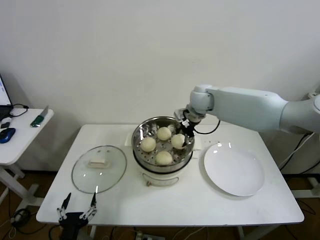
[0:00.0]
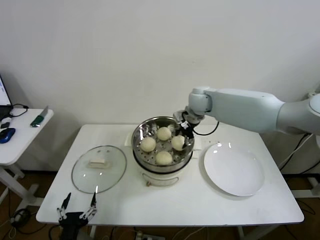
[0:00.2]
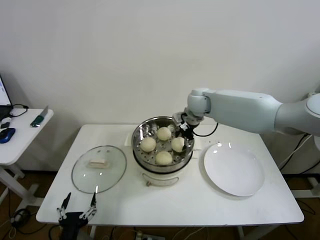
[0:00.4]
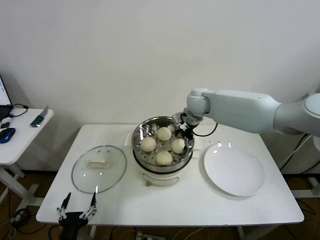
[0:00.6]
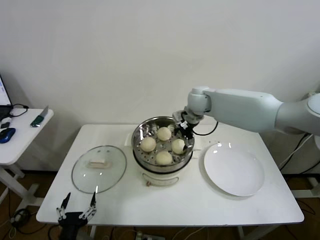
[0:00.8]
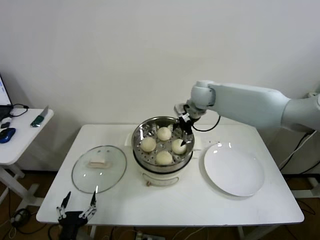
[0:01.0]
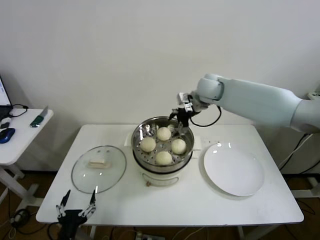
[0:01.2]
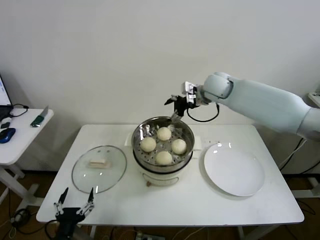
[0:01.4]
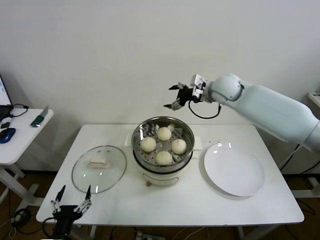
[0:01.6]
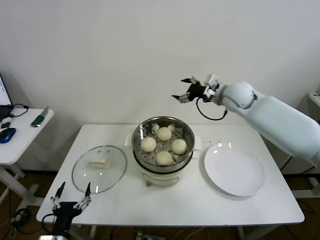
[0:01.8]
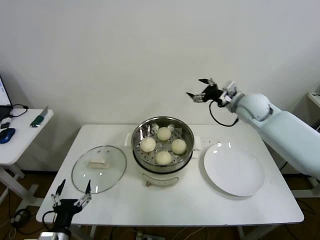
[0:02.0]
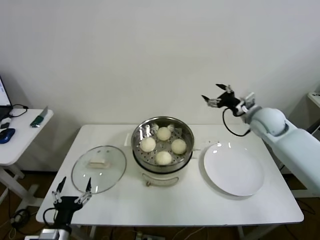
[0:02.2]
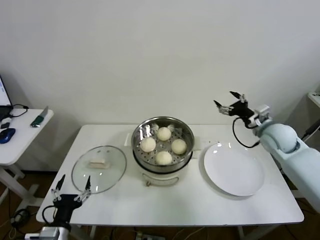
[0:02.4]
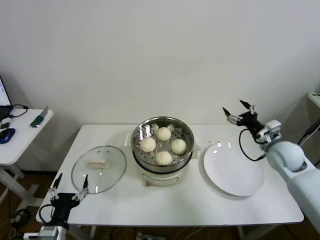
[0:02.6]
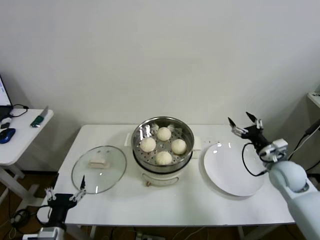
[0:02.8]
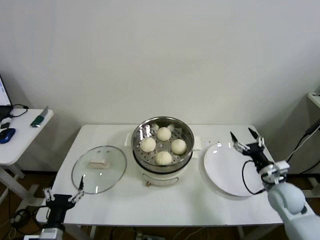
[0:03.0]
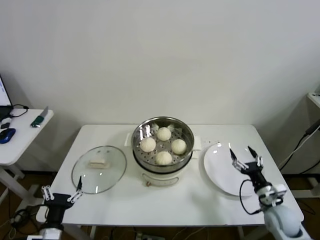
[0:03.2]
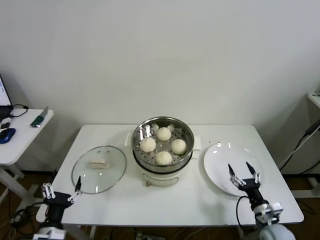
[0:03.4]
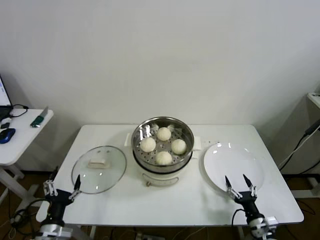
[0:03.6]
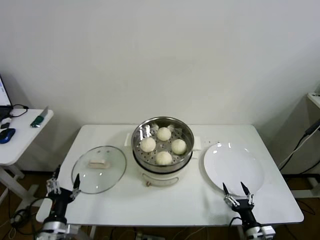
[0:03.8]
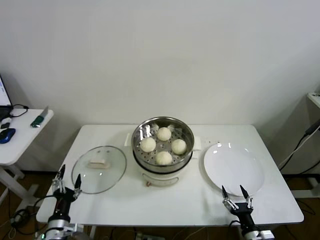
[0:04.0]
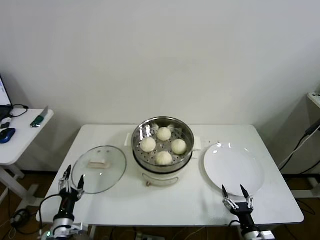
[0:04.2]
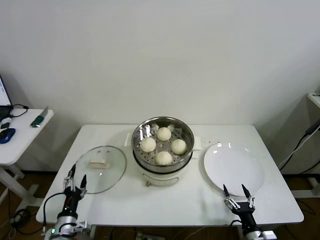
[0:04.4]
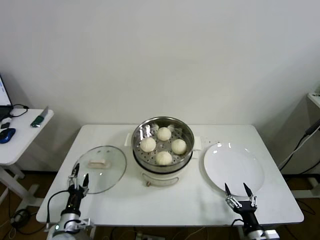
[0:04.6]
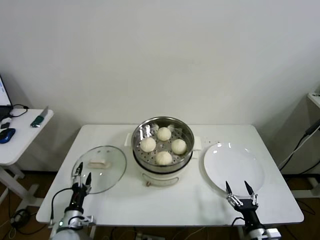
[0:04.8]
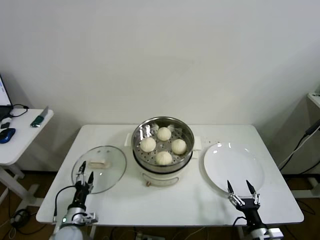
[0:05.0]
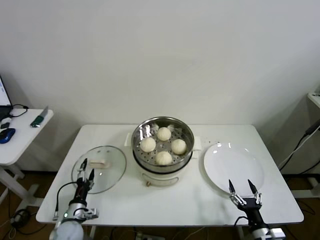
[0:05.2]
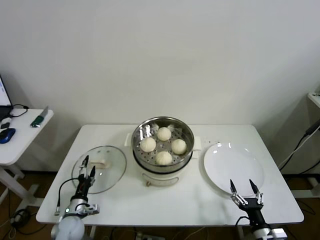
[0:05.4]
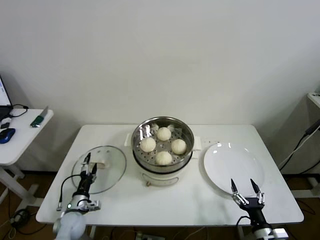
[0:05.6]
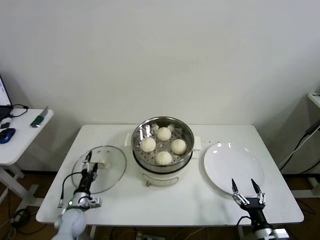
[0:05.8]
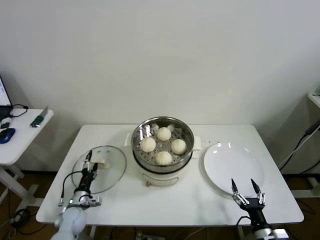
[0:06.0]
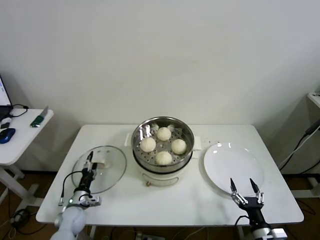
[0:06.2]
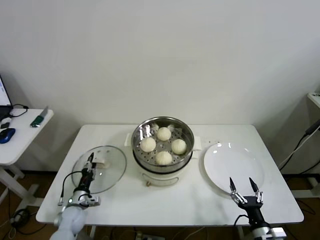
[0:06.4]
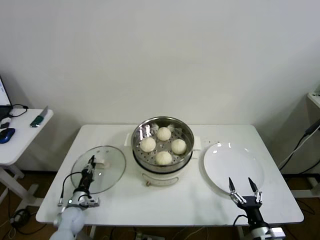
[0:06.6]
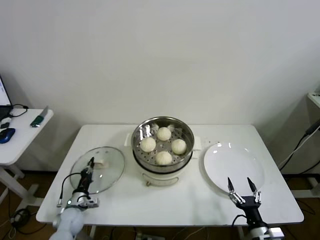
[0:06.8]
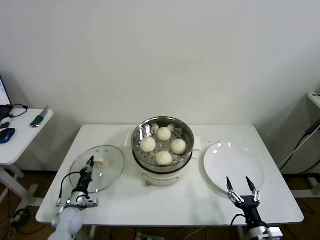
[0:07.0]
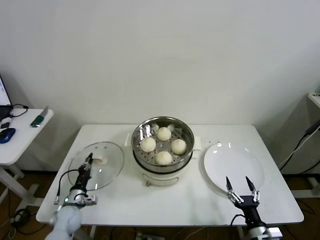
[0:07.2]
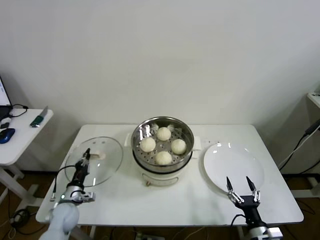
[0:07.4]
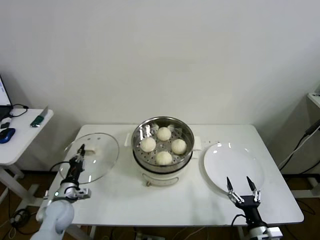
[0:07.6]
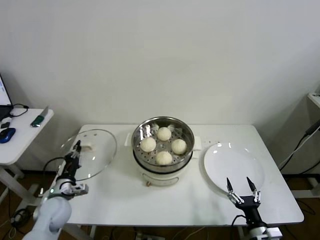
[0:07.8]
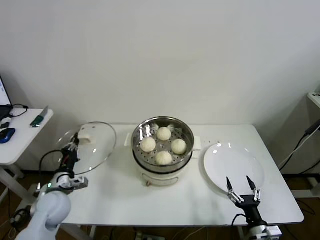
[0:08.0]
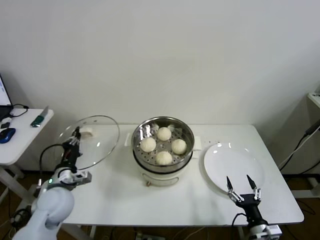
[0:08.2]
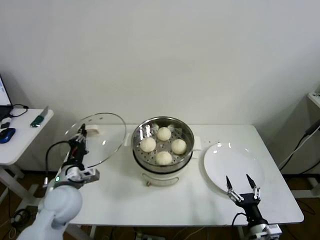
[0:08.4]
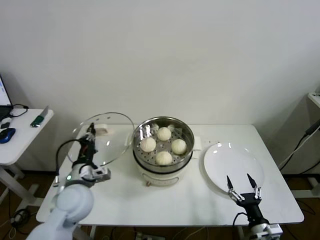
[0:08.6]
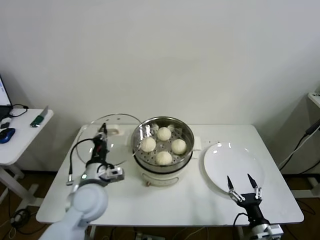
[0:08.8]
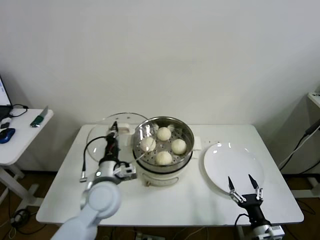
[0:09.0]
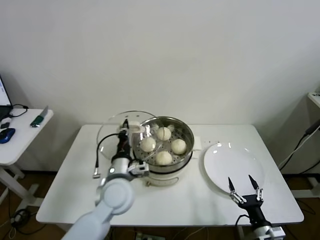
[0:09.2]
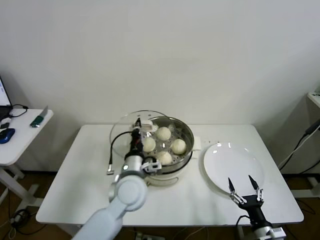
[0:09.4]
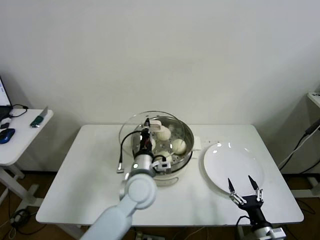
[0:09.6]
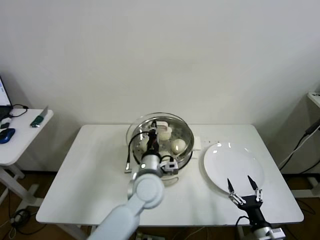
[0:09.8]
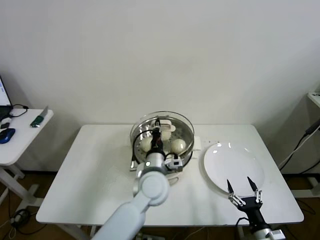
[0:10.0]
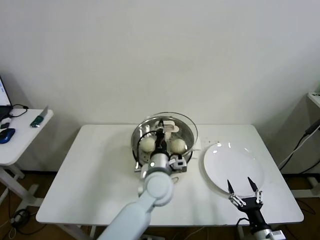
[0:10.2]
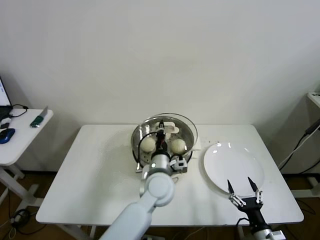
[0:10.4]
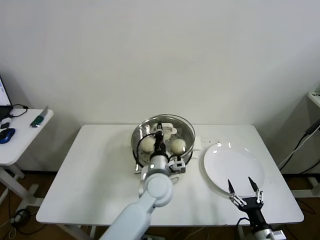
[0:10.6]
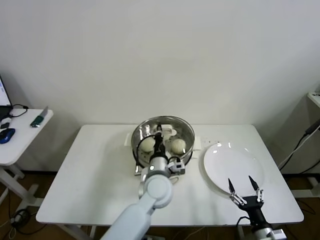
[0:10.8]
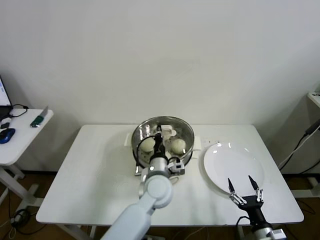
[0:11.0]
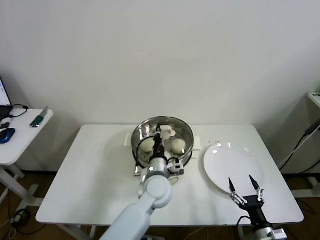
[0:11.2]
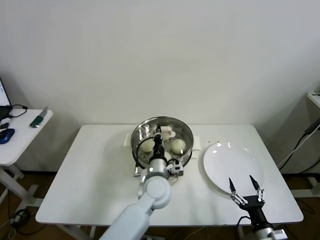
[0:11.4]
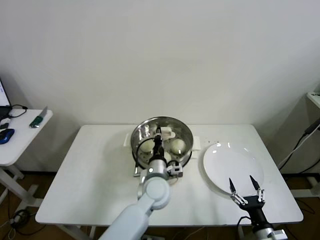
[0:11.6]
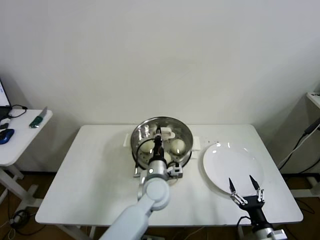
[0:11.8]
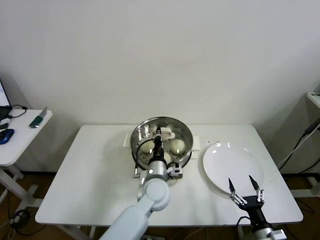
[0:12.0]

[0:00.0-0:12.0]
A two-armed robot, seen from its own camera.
Step, 0.8 to 6.6 s: Grasp the pot lid with left gripper.
0.0 to 1.6 s: The right gripper shifts about 5 cm to the right, and opens.
1.6 to 3.0 s: The right gripper travels downward, backward and to the right by approximately 40 cm.
3.0 to 4.4 s: The right gripper moves backward, downward and to the left, roughly 25 cm. The left gripper moves downward and forward, roughly 10 cm.
4.4 to 6.0 s: The left gripper travels forward and downward by about 10 cm.
6.0 to 7.6 s: The left gripper heads upward, covering approximately 5 cm, and closes up.
7.6 to 9.0 s: The left gripper goes about 25 cm to the right and upward.
9.0 to 10.4 s: The left gripper heads to the right, covering roughly 15 cm.
10.4 to 12.0 s: The grippers move only a little.

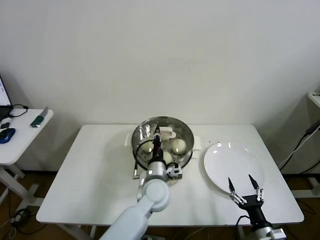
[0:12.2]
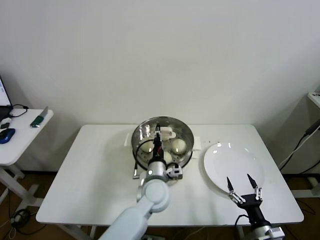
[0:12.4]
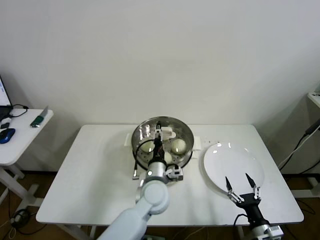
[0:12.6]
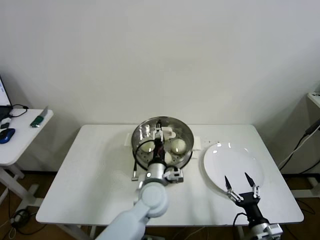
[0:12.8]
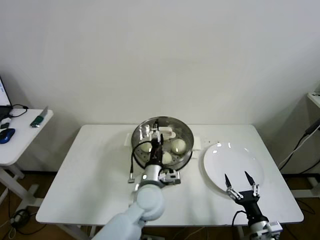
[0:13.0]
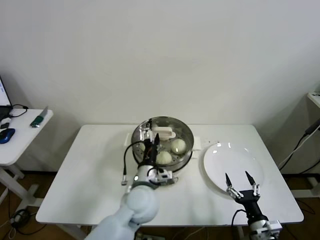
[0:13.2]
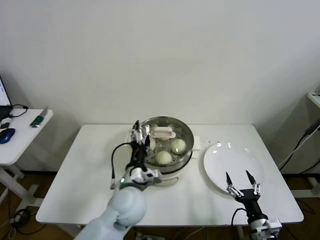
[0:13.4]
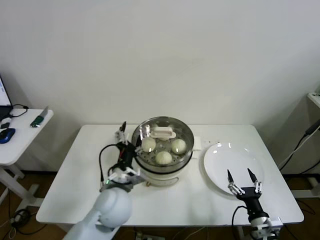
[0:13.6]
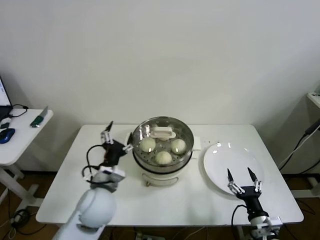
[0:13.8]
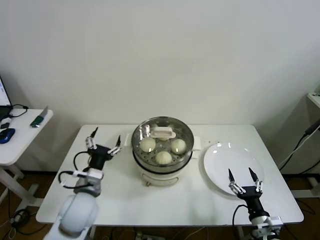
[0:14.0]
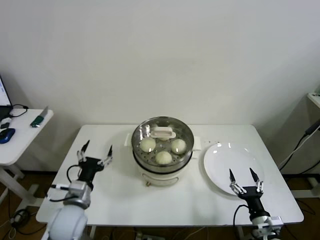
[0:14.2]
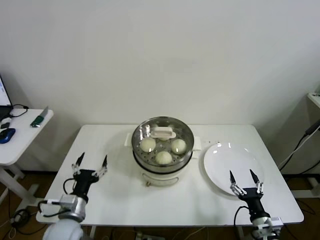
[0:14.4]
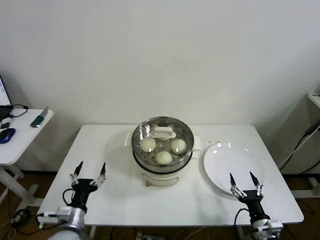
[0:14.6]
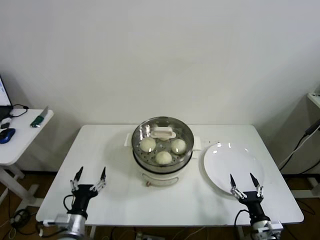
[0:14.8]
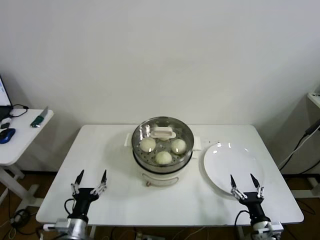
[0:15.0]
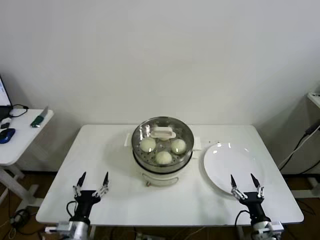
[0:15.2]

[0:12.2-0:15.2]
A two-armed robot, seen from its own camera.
12.2 to 13.8 s: The left gripper goes approximately 15 cm to the left, upward and backward, and opens its fingers.
13.8 to 15.2 s: The left gripper travels downward, backward and to the left by approximately 20 cm.

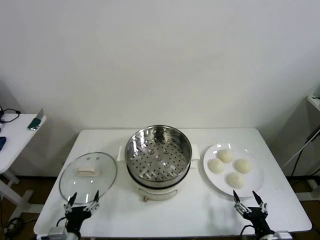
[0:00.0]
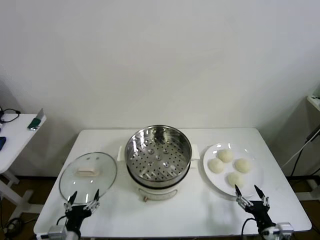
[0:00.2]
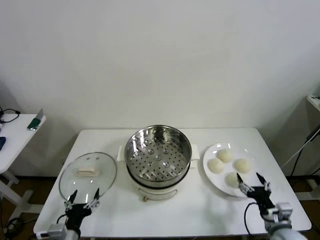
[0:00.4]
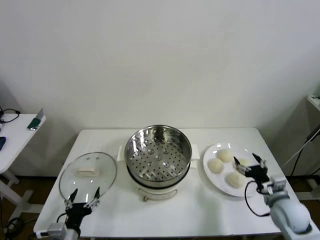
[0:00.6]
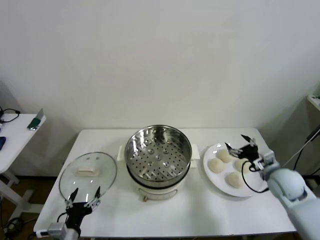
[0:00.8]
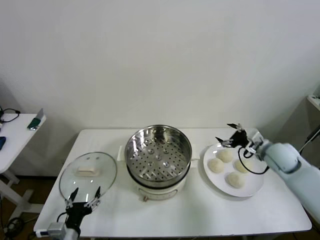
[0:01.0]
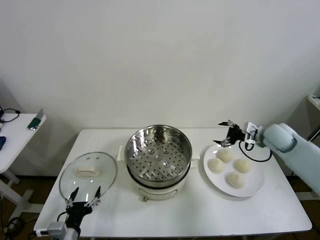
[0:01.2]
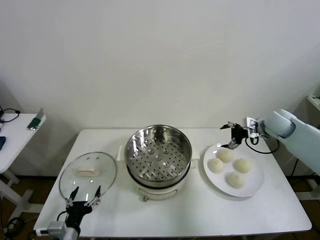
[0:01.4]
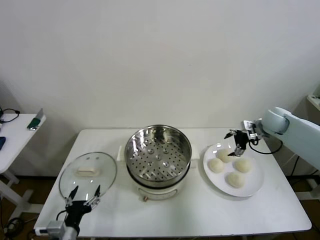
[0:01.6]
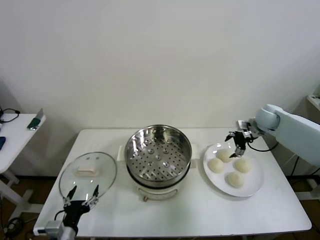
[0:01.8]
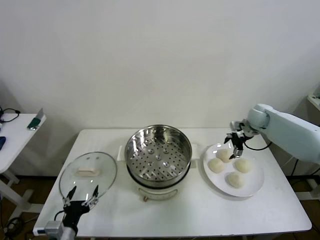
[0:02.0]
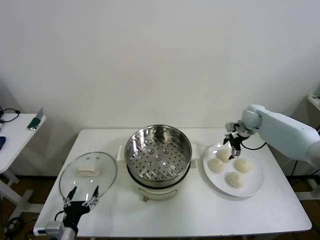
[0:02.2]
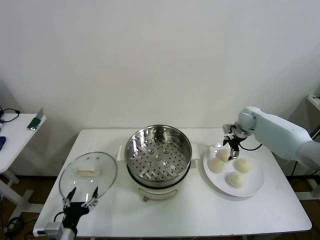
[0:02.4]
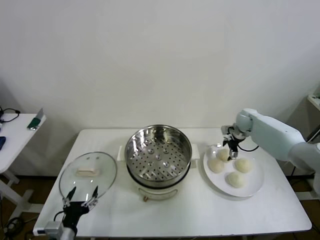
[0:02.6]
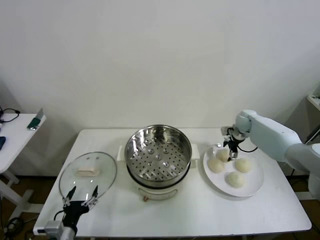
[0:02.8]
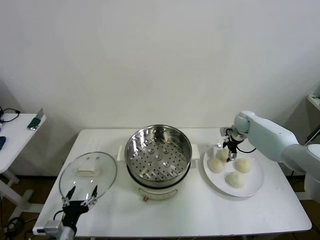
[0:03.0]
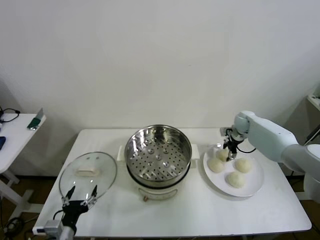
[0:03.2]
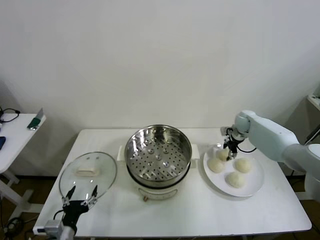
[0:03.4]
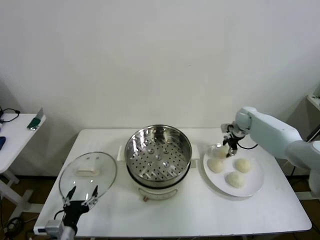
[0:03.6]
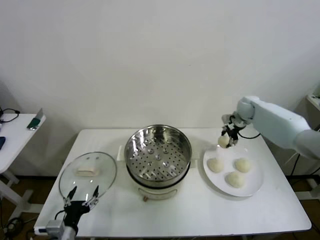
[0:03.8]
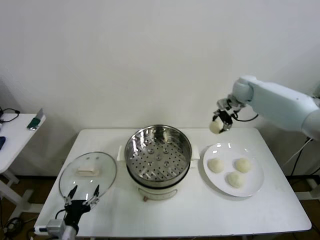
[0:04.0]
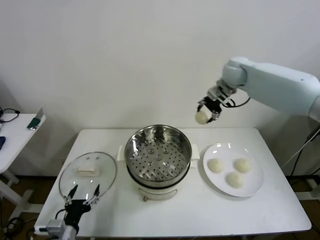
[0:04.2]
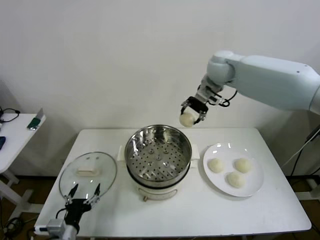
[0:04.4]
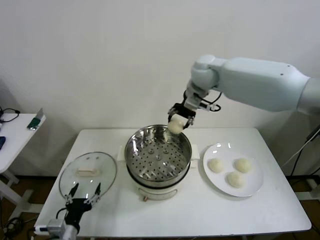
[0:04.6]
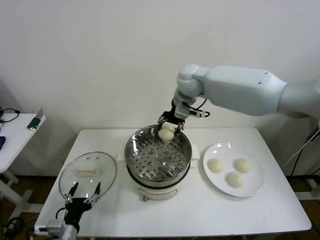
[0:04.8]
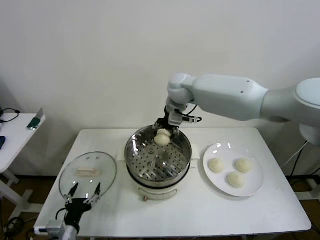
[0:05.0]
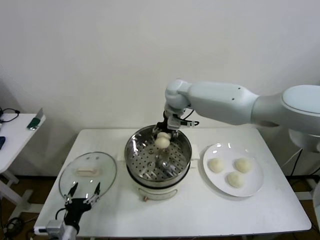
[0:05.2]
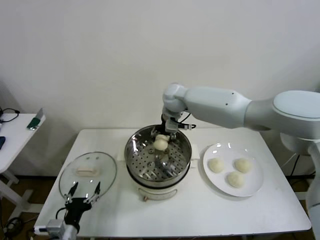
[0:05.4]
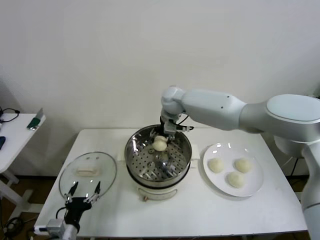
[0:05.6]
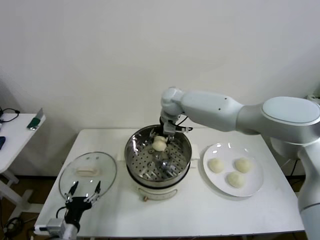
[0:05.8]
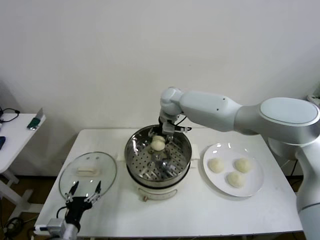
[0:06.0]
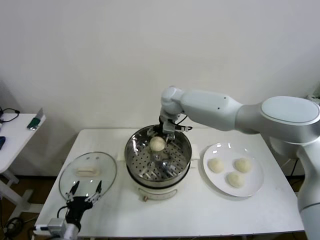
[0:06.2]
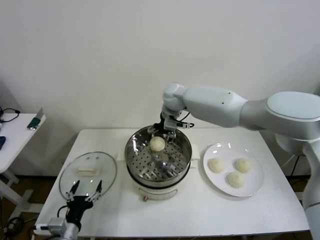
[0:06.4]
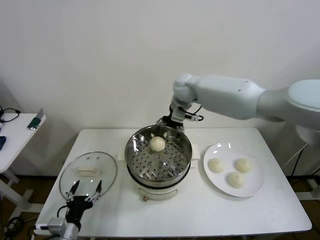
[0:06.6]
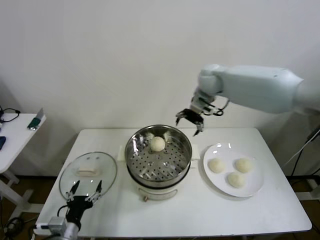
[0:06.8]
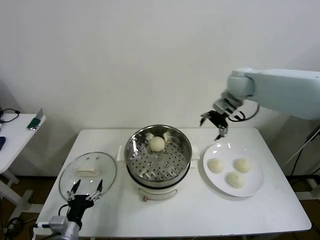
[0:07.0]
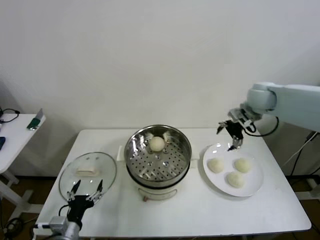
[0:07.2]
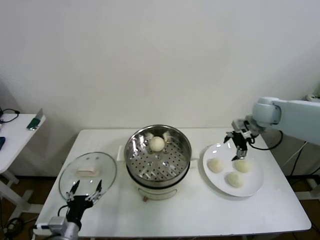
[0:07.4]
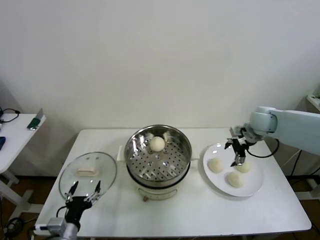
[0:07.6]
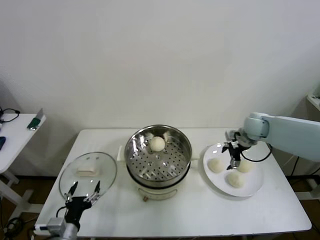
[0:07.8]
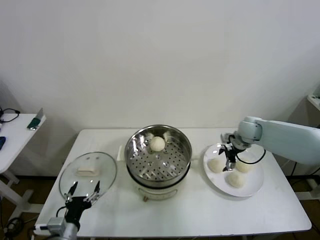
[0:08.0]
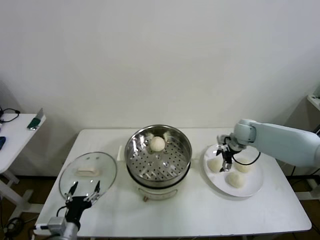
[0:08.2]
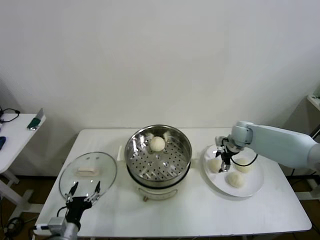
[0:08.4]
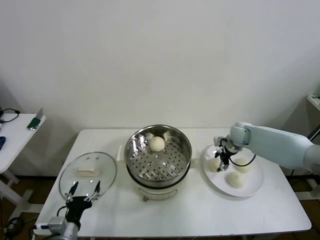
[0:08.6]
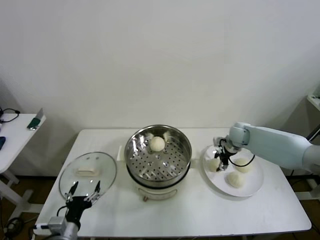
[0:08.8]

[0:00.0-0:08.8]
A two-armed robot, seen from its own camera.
Step, 0.0 to 3.0 s: Grasp the baozi in the plate with right gripper.
Step, 3.4 to 6.4 s: Place the baozi on the steamer with right gripper.
Step, 6.6 to 8.6 s: Grasp the baozi in the plate with right gripper.
1.4 to 3.0 s: The right gripper heads forward, downward and to the left, covering about 15 cm, and closes up.
3.0 to 4.4 s: The right gripper heads upward and to the left, covering roughly 35 cm, and closes up.
4.4 to 5.8 s: The right gripper travels downward and to the left by approximately 20 cm.
5.8 to 7.4 s: The right gripper shifts about 30 cm to the right, and opens its fingers.
7.4 to 8.8 s: The right gripper shifts some 15 cm downward, and closes up.
